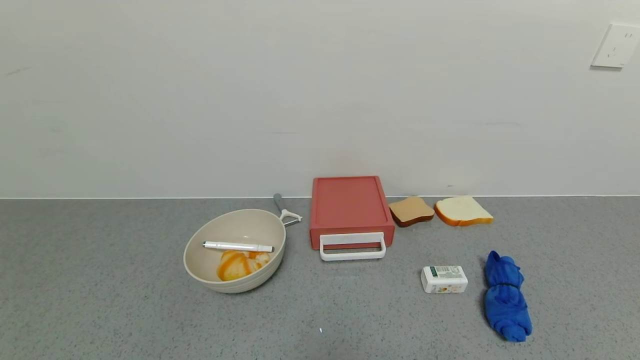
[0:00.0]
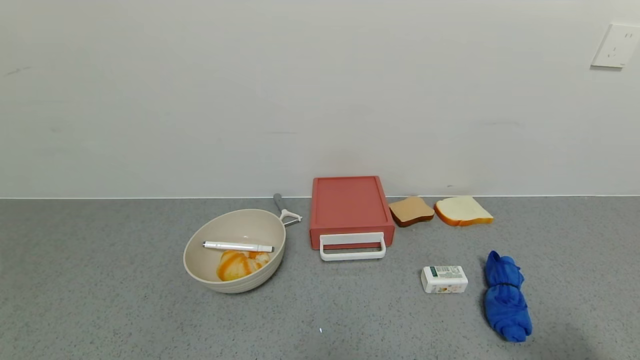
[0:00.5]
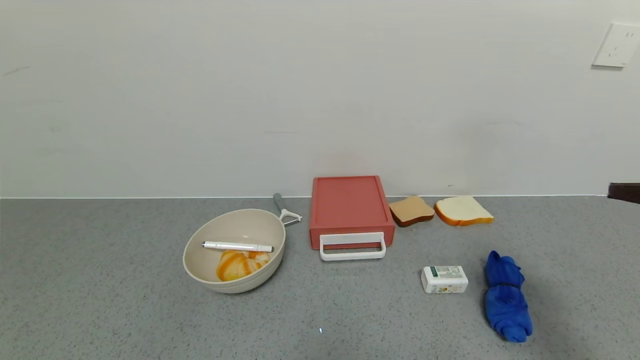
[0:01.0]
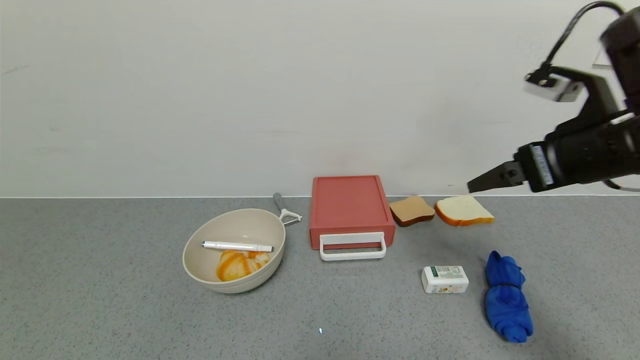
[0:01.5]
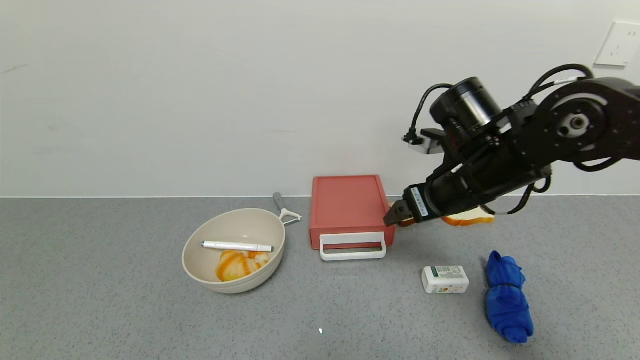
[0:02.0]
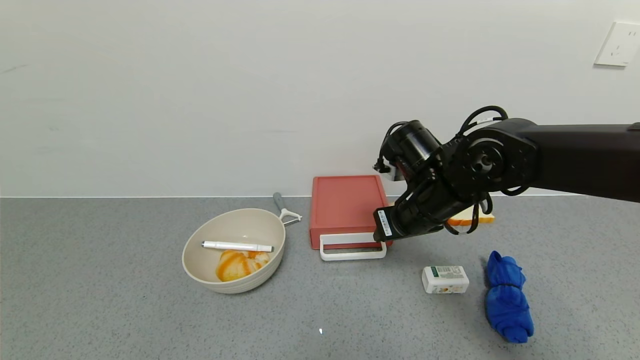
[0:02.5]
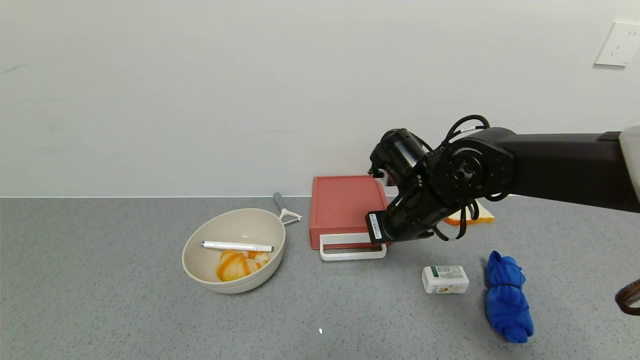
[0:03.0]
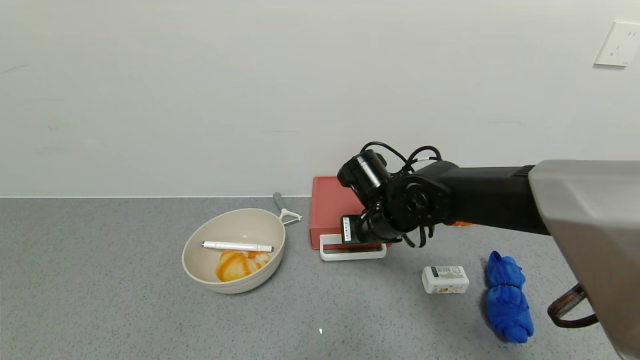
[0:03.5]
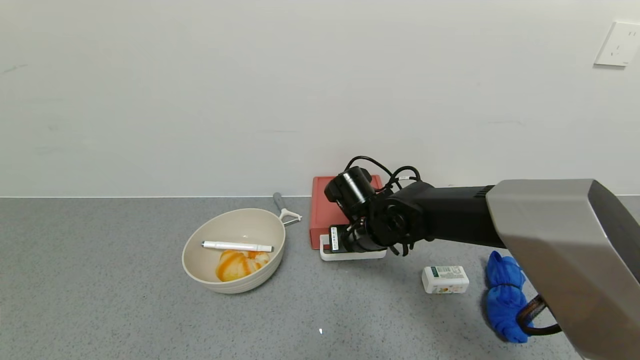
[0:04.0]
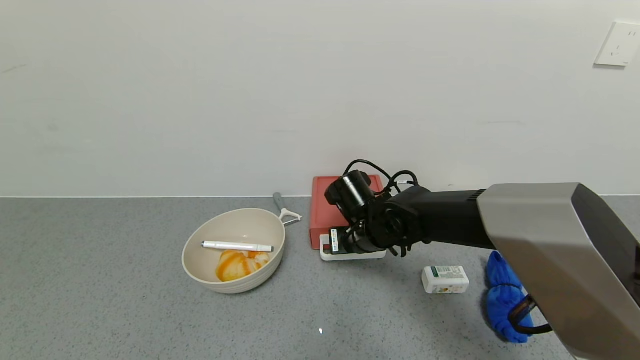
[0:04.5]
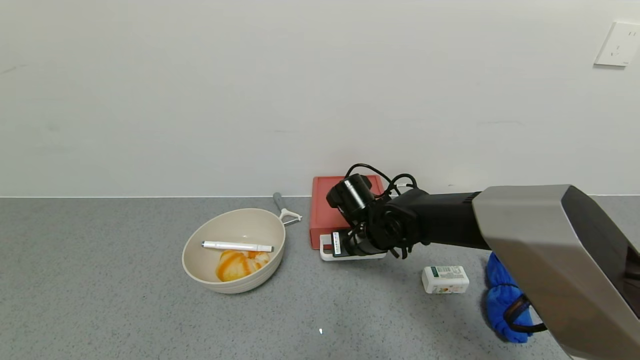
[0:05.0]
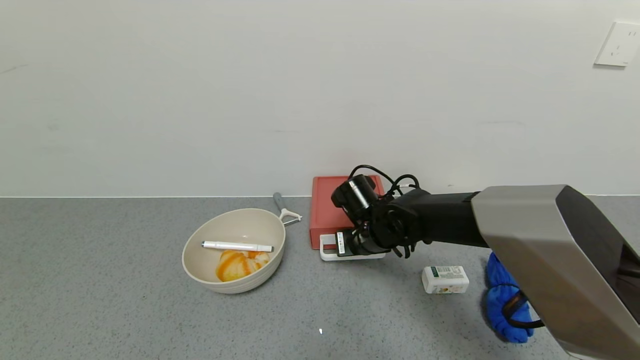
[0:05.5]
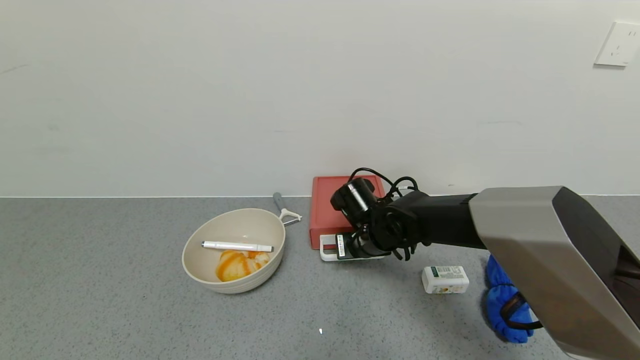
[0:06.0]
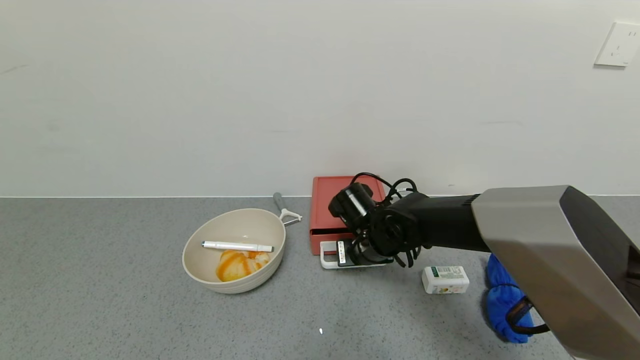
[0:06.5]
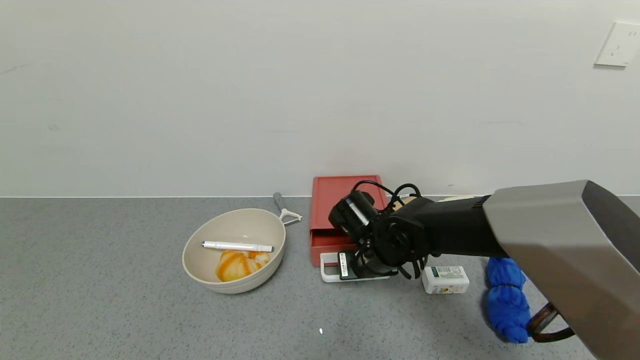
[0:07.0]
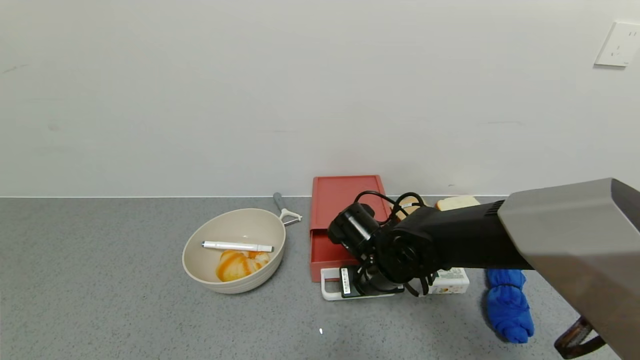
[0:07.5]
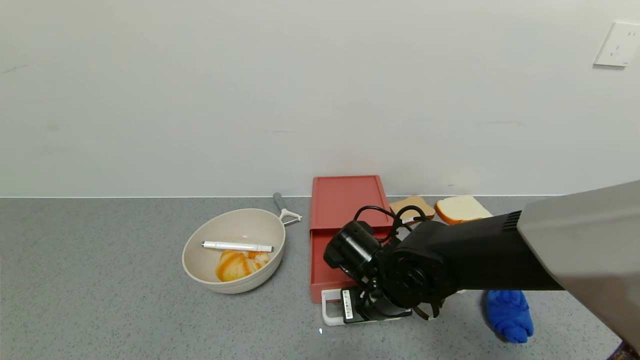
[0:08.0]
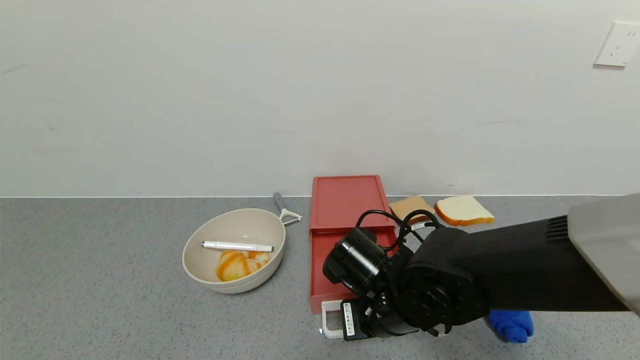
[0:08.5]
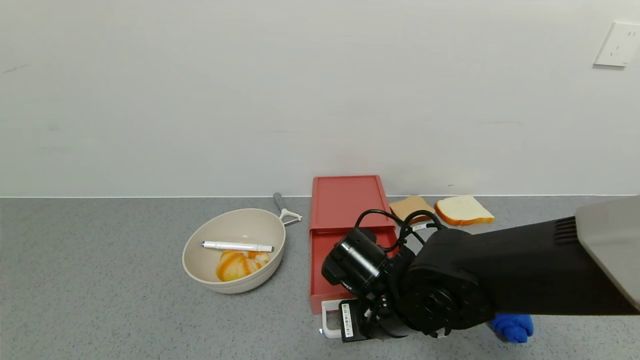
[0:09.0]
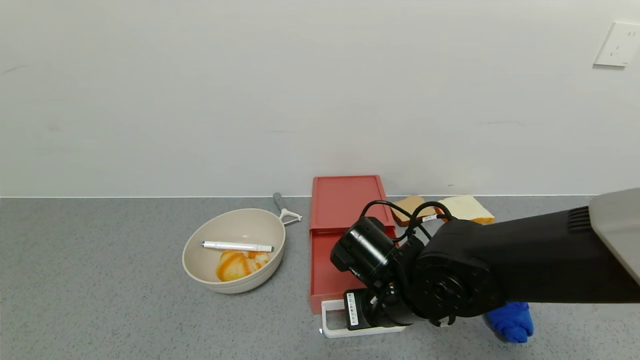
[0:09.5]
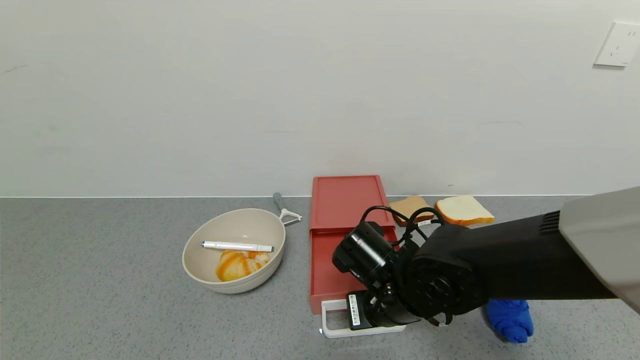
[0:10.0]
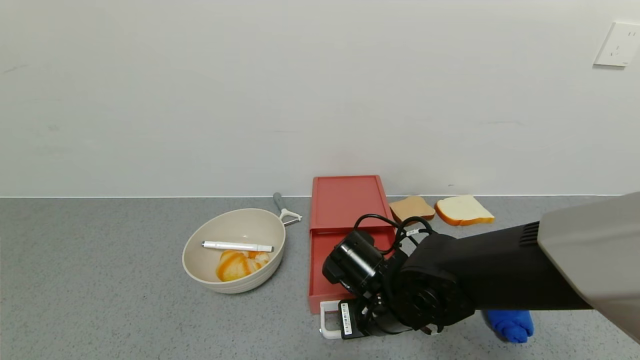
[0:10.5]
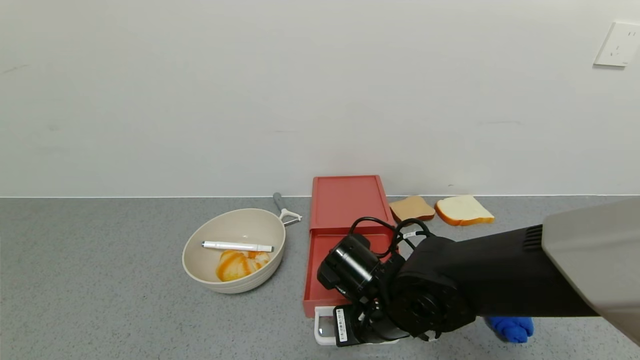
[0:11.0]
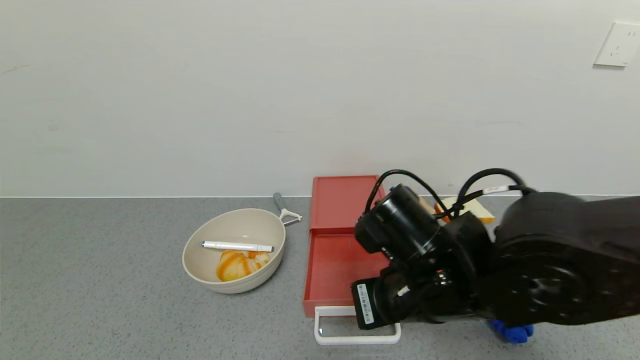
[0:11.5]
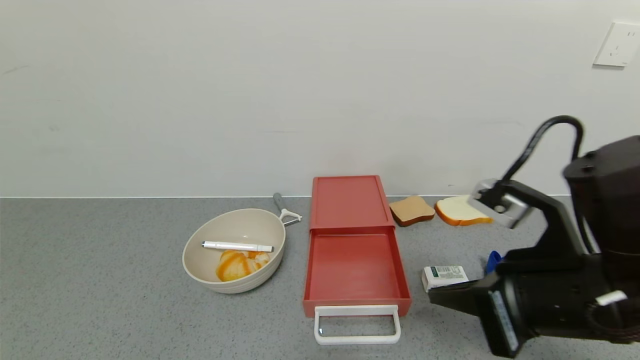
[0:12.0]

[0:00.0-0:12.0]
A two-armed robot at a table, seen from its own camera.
Task of the whole recording: use the gripper to open the drawer and close the red drawer.
Step, 0:00.0 to 0:11.5: Open the red drawer with right gripper.
0:00.0 to 0:02.0: The right gripper goes approximately 40 cm forward and to the left.
0:02.0 to 0:04.0: The right gripper heads downward and to the left, covering roughly 15 cm, and closes up.
0:04.0 to 0:06.0: The grippers stay close to where they were, moving slightly.
0:06.0 to 0:08.0: The right gripper goes approximately 10 cm backward.
0:08.0 to 0:10.0: The grippers stay close to where they were, moving slightly.
0:10.0 to 0:12.0: The right gripper shifts some 20 cm upward, to the right and backward.

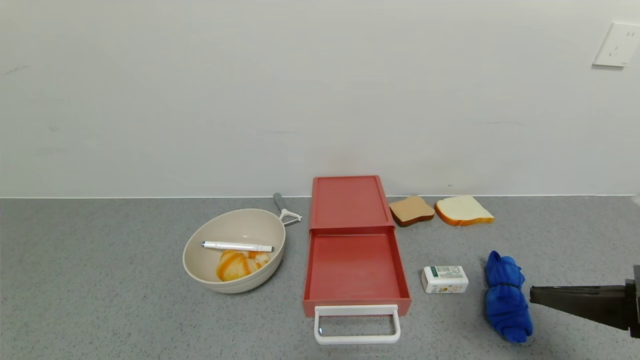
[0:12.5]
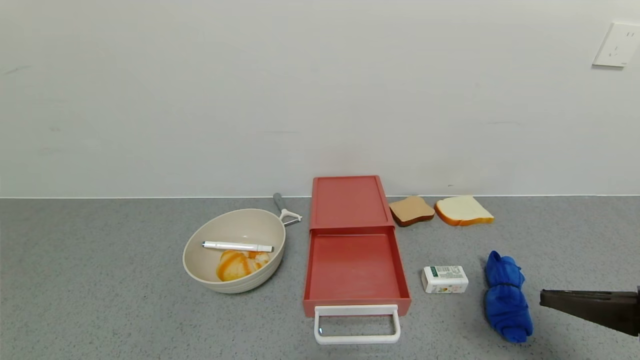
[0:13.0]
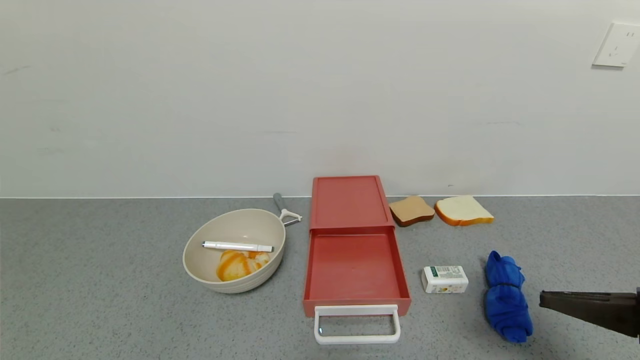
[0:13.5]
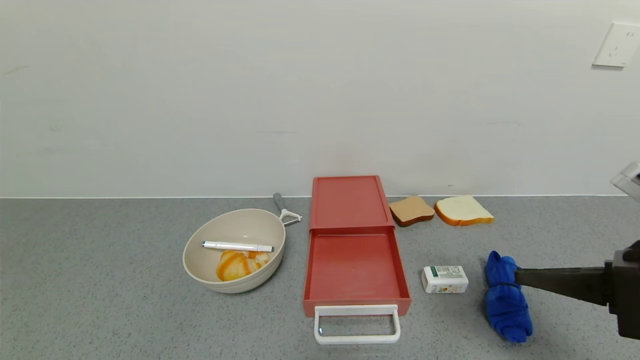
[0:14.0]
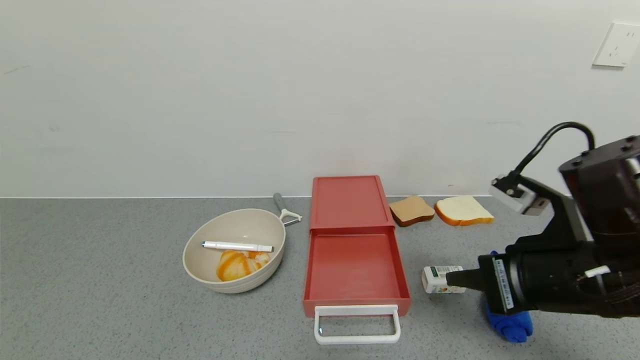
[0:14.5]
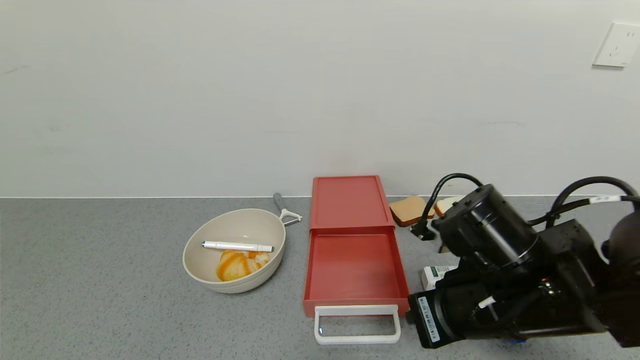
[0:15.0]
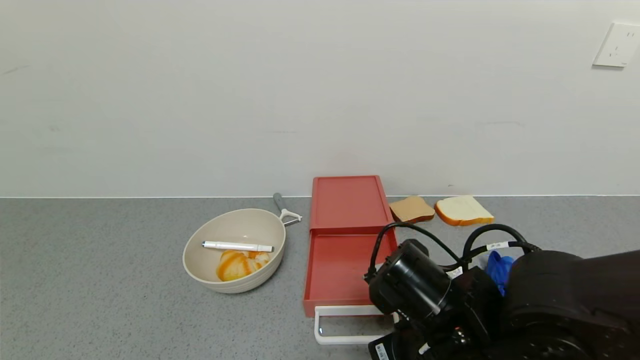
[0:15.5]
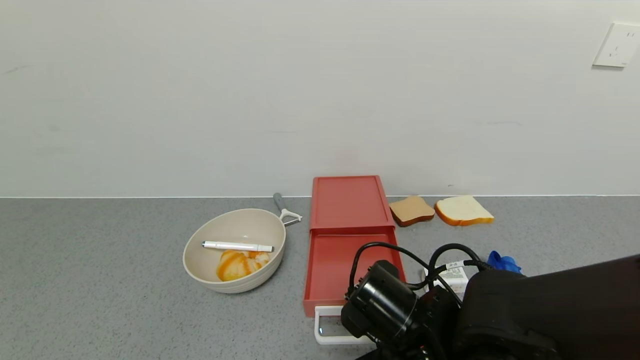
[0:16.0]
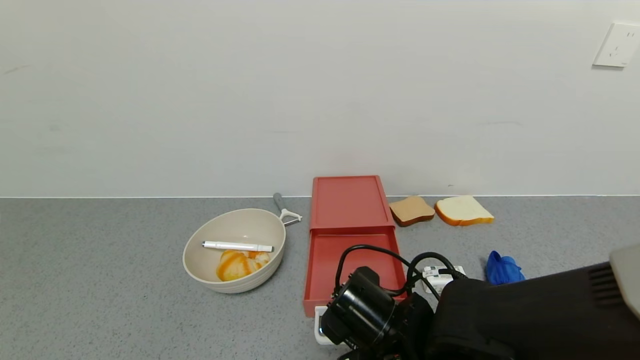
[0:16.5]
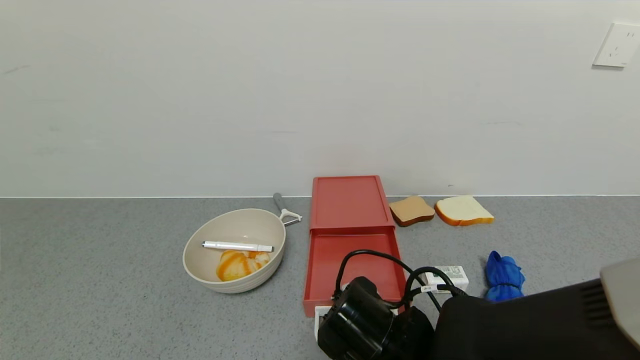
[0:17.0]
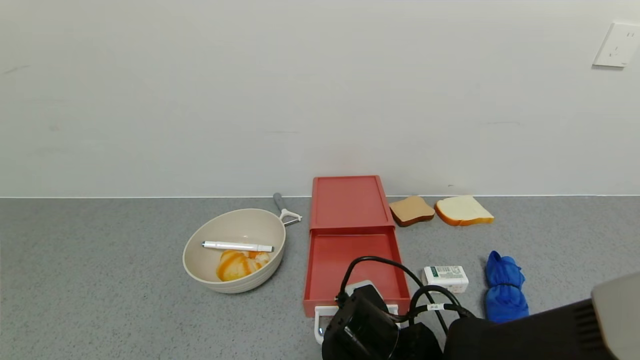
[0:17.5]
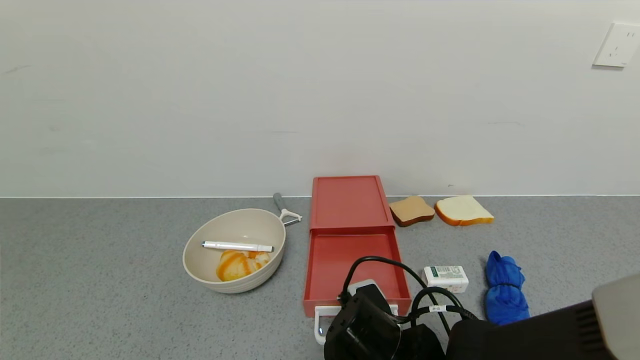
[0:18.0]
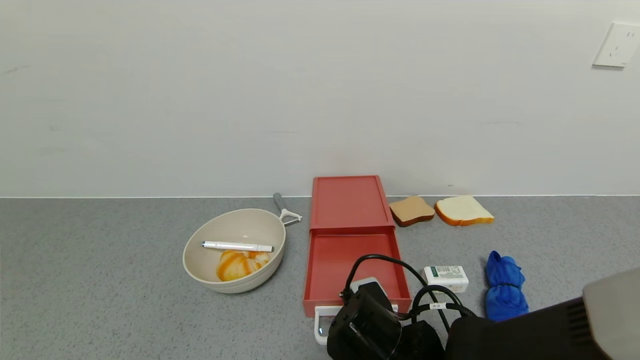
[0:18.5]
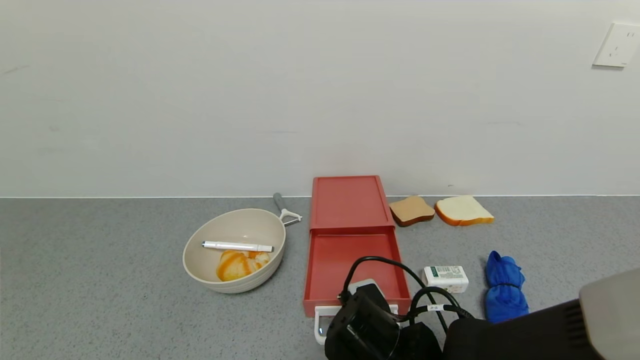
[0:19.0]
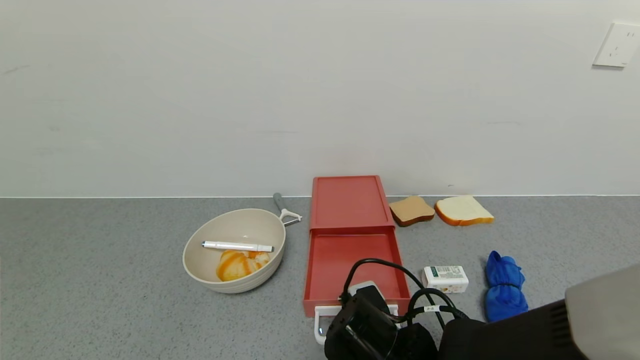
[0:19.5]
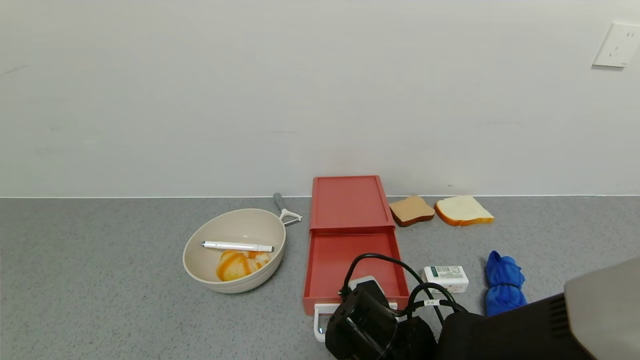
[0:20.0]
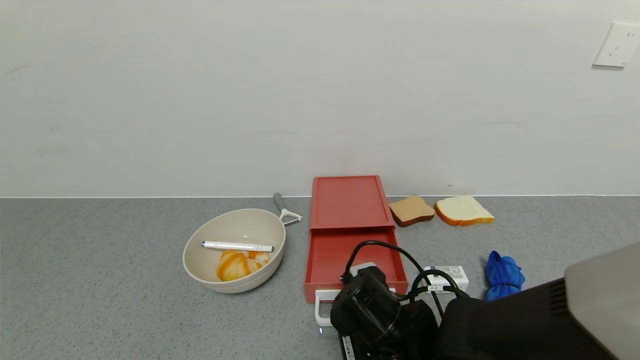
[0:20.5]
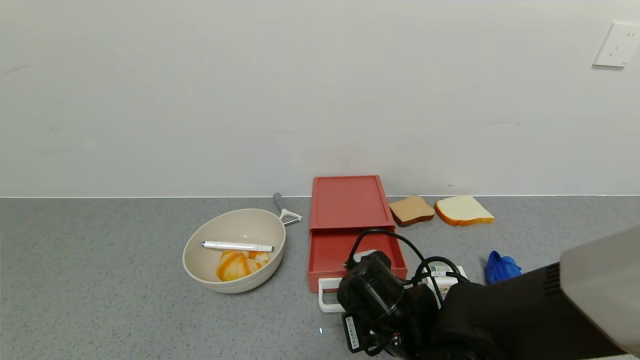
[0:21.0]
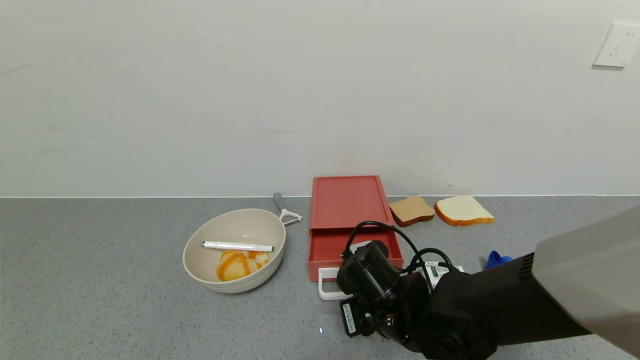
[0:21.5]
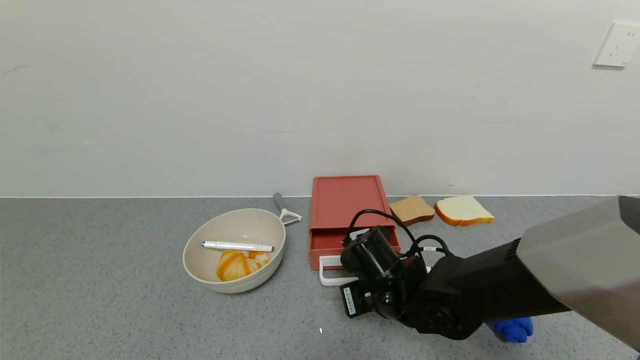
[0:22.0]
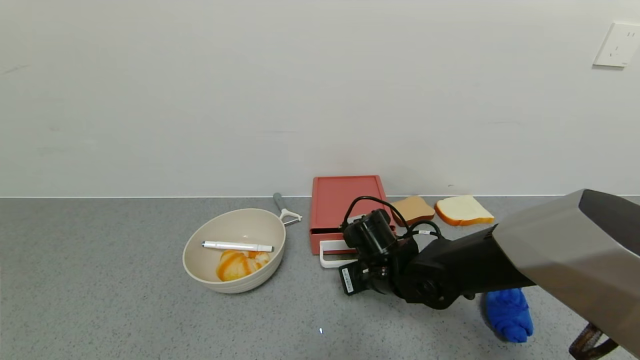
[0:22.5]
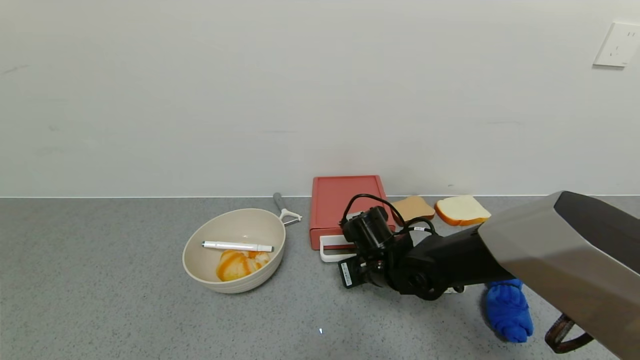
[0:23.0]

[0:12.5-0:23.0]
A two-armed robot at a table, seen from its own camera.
Task of the whole recording: use the gripper to open the drawer and close the red drawer.
0:12.5 to 0:14.5: The right gripper shifts roughly 10 cm to the left and forward.
0:14.5 to 0:16.5: The right gripper travels to the left and downward by roughly 20 cm.
0:16.5 to 0:21.0: The grippers move only a little.
0:21.0 to 0:23.0: The right gripper heads forward, covering approximately 10 cm.
